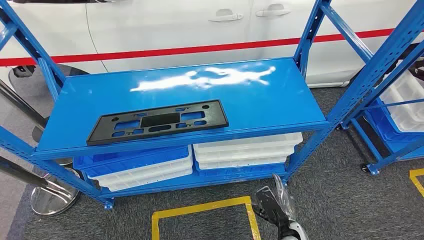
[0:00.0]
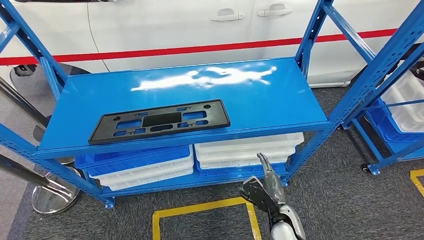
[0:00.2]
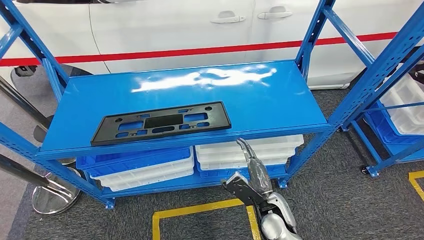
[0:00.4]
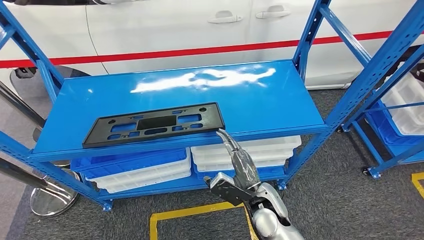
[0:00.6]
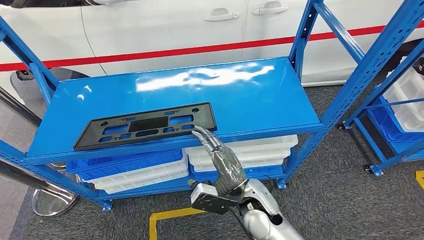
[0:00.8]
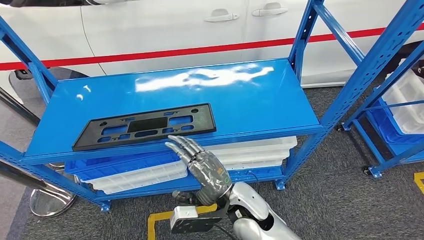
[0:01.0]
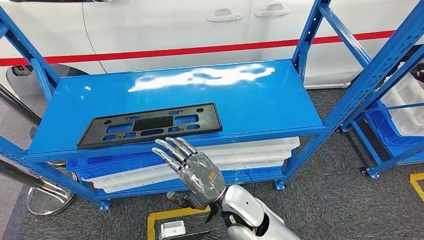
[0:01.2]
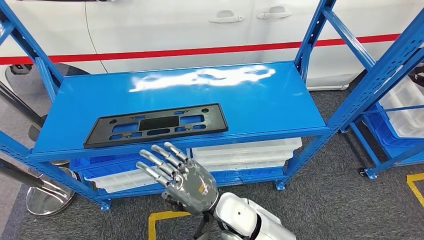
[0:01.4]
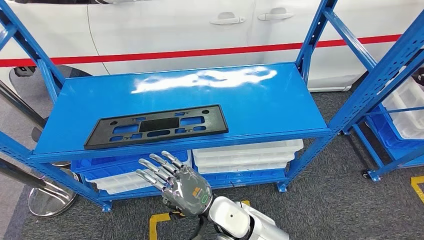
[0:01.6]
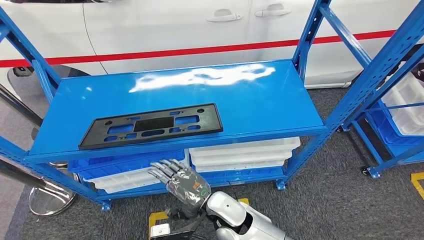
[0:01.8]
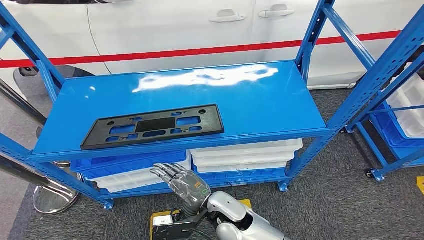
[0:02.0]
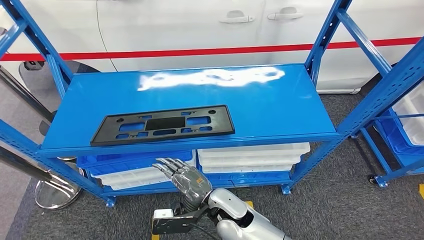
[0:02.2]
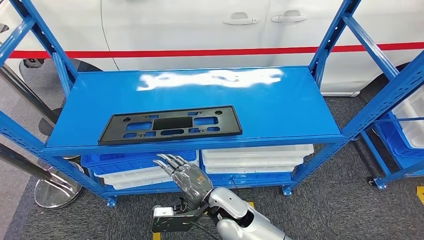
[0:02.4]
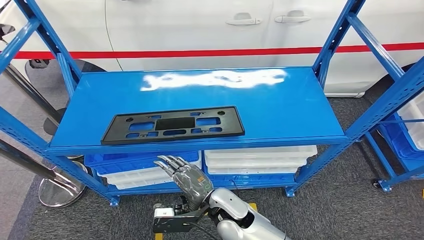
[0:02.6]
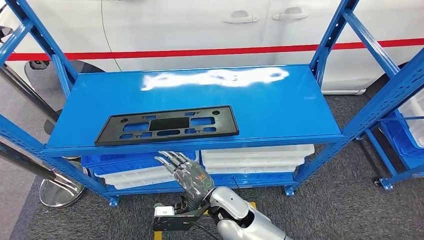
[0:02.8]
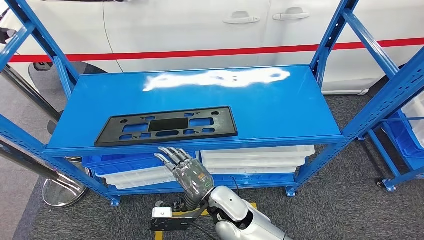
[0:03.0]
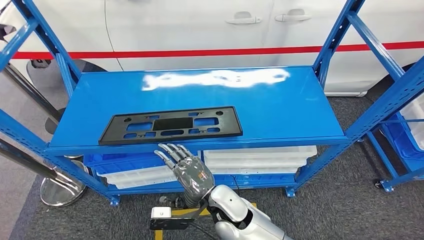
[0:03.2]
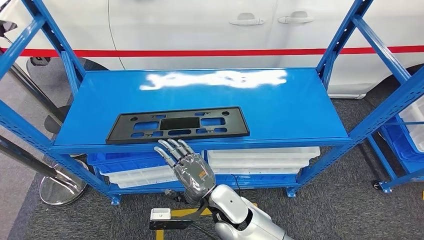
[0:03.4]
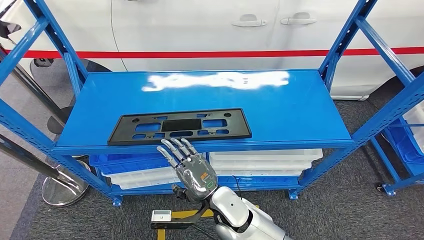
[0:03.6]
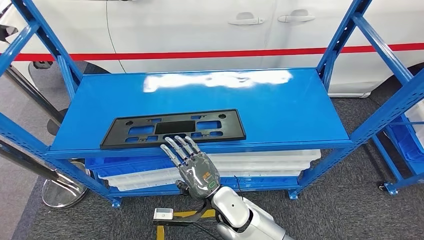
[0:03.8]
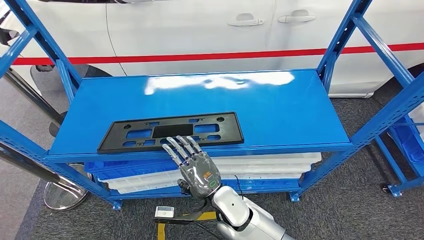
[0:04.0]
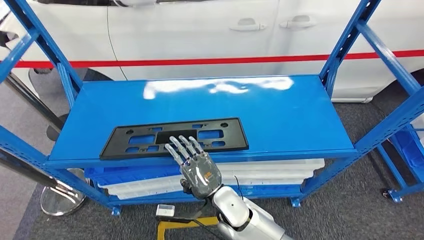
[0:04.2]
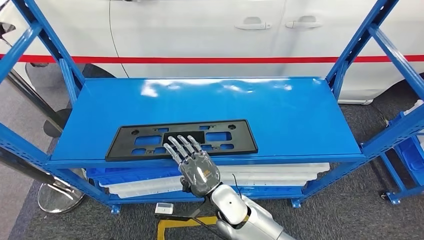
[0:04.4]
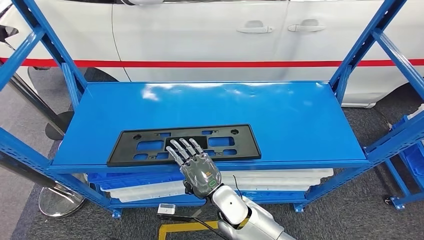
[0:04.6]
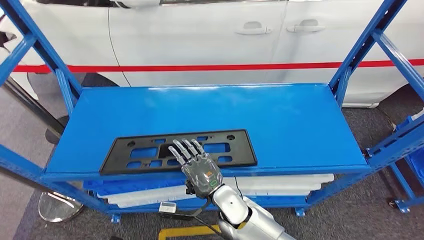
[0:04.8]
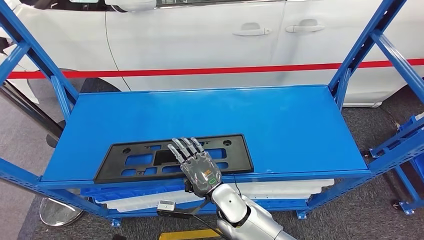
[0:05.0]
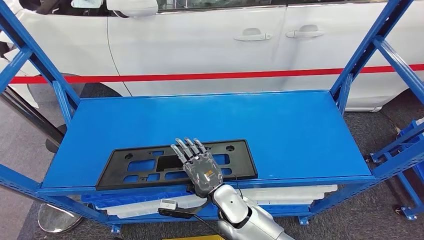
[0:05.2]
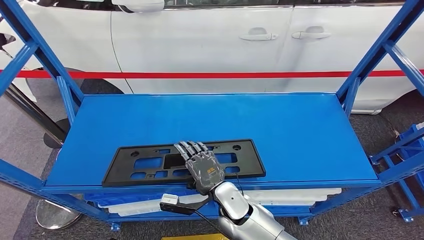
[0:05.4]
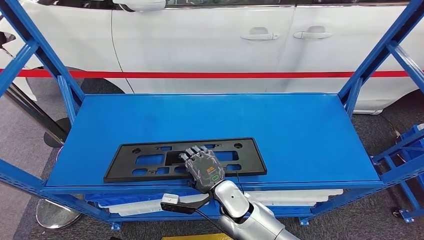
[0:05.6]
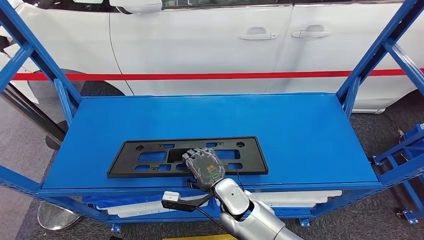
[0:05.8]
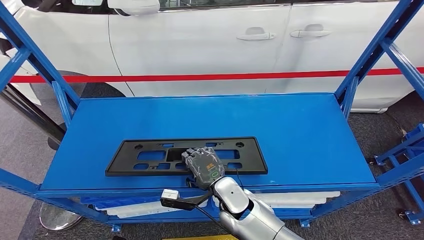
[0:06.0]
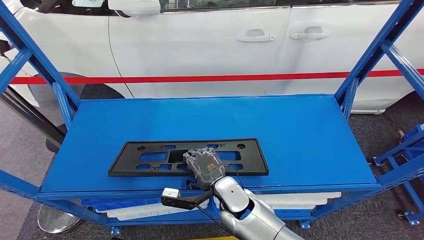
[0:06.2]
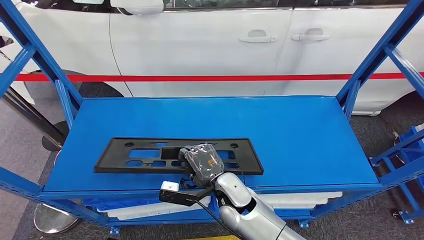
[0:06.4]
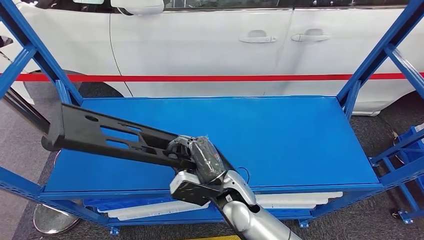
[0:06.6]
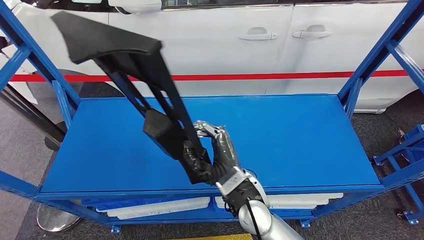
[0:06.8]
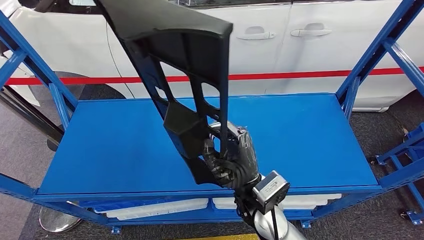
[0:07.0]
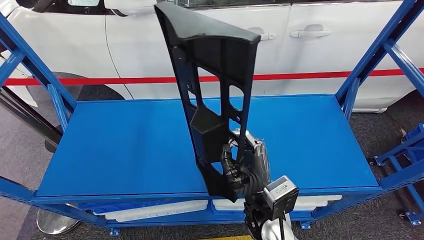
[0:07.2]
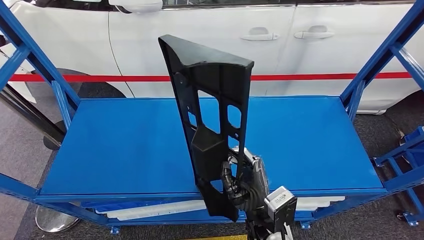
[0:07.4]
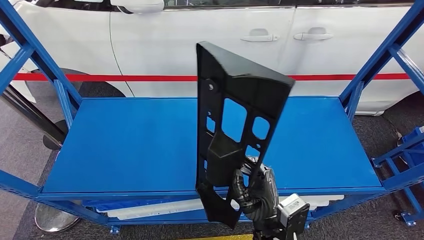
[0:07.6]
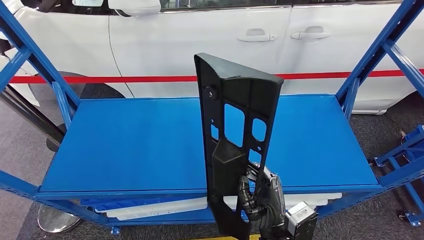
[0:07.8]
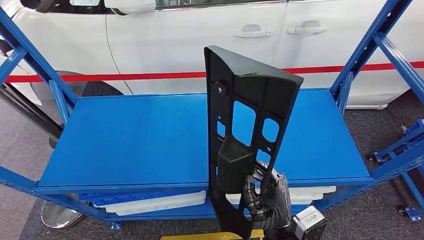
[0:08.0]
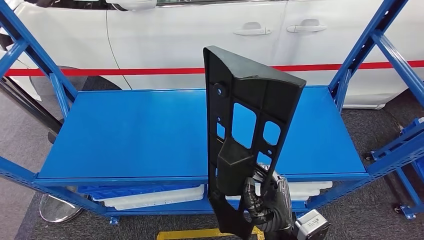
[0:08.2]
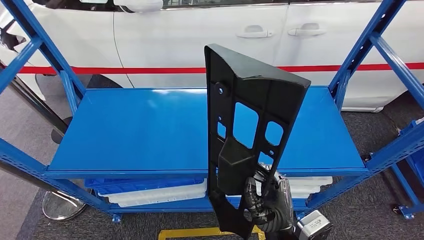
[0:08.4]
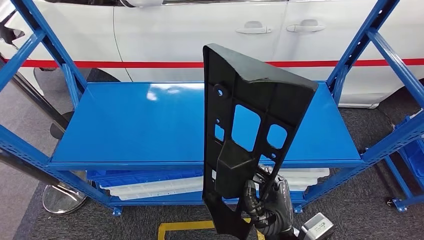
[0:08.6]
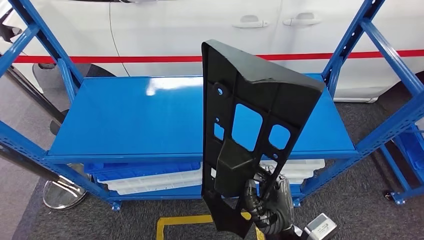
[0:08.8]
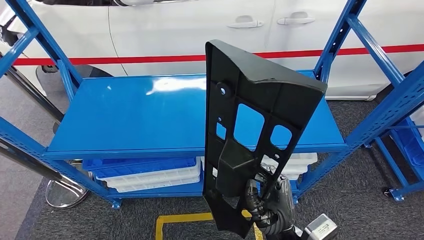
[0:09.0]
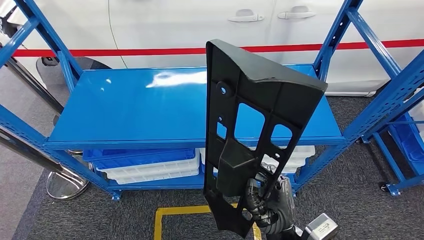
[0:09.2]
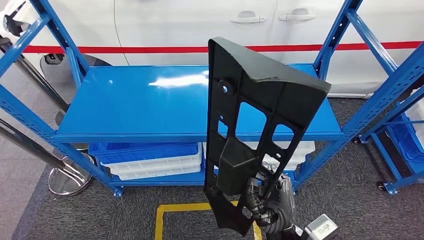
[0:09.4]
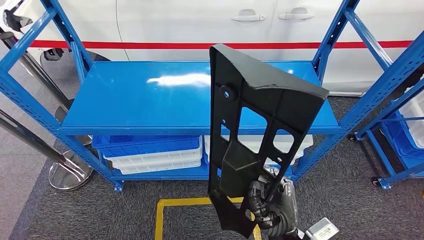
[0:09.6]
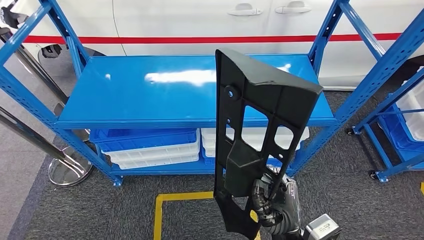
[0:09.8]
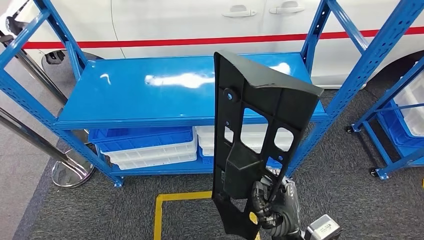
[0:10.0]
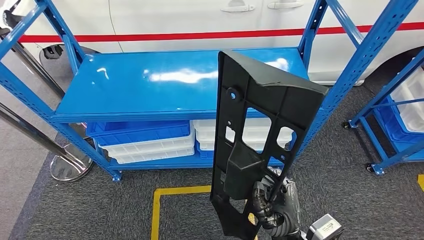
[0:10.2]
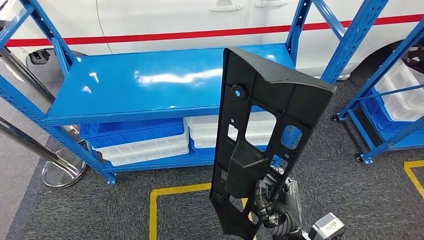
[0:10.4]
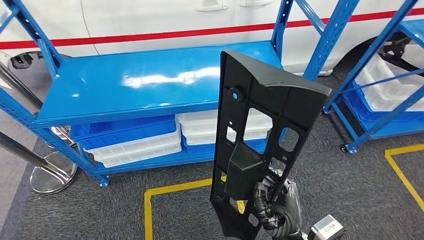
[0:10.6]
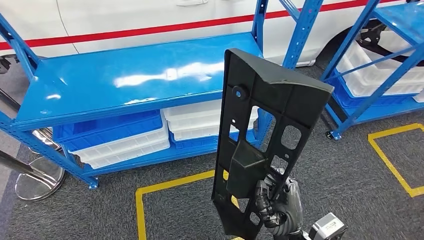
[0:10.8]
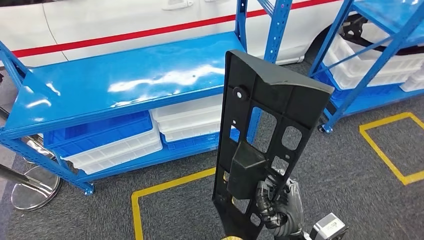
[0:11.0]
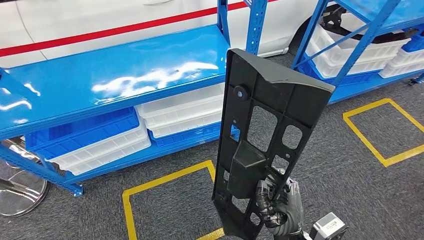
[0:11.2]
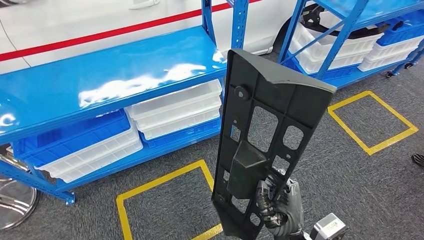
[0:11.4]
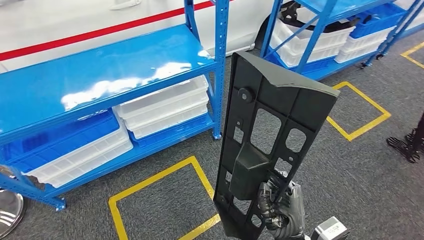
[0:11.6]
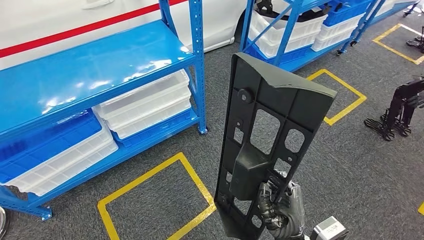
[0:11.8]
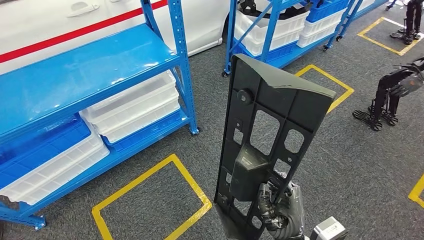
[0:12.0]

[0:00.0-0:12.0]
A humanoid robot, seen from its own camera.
Step, 0:00.0 to 0:07.0: Pick up the large material from the shelf.

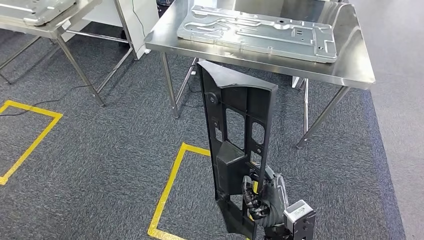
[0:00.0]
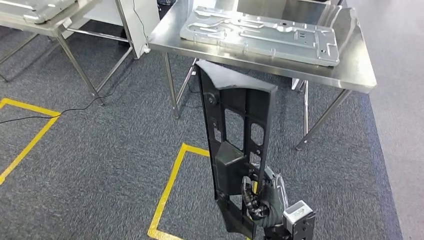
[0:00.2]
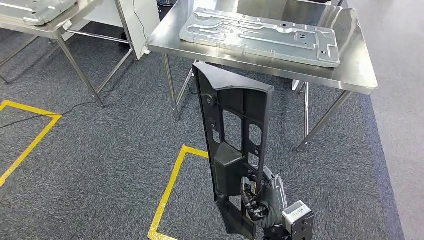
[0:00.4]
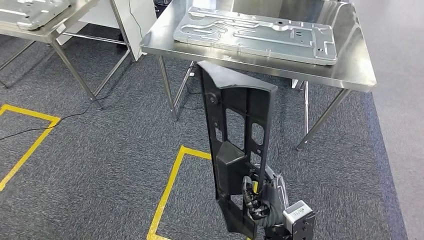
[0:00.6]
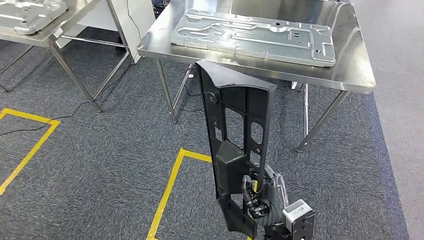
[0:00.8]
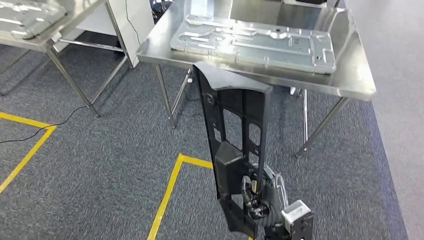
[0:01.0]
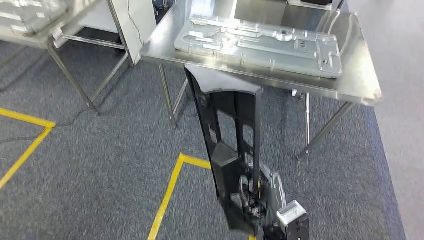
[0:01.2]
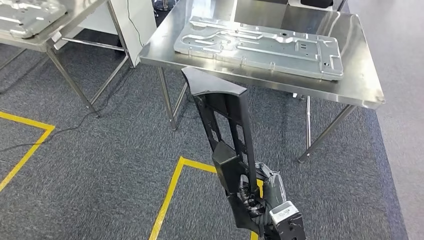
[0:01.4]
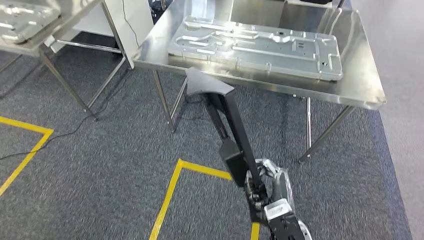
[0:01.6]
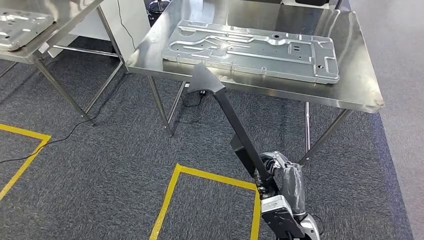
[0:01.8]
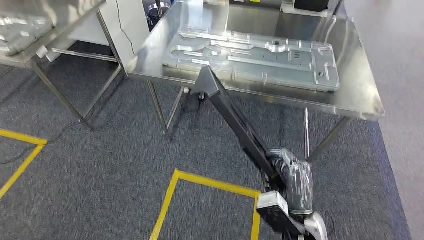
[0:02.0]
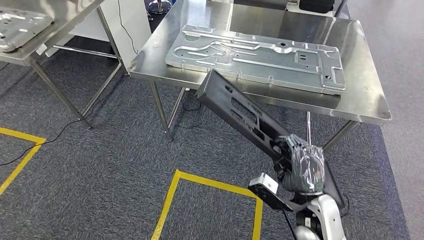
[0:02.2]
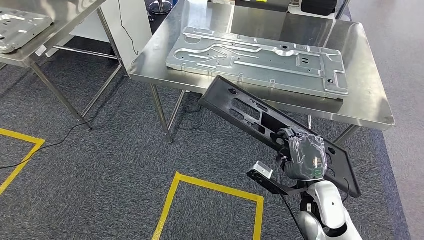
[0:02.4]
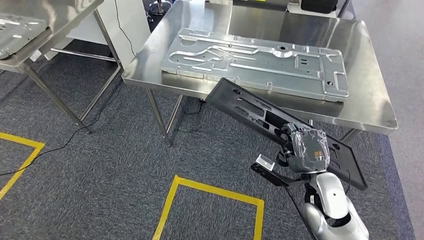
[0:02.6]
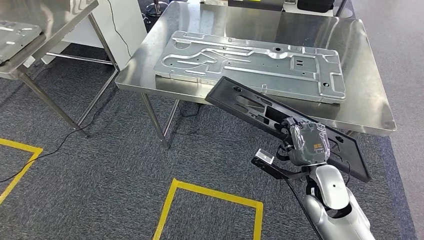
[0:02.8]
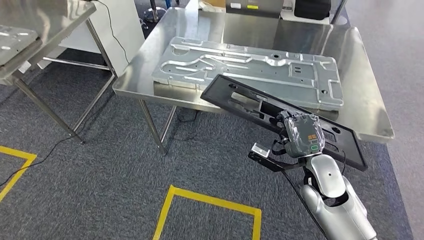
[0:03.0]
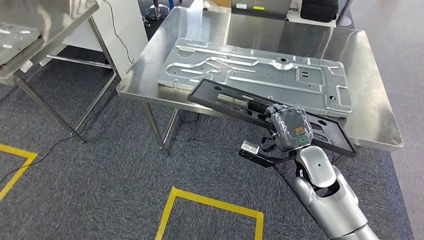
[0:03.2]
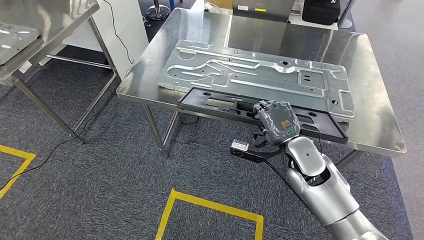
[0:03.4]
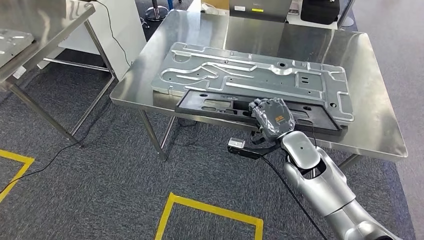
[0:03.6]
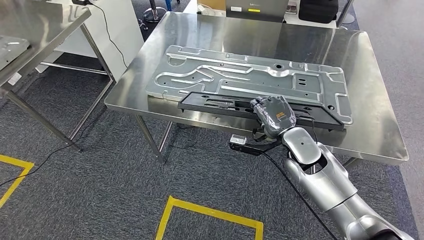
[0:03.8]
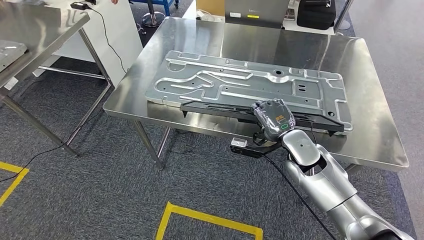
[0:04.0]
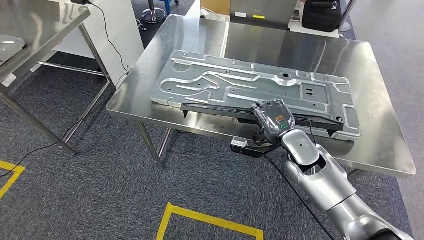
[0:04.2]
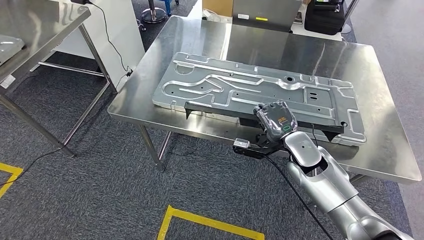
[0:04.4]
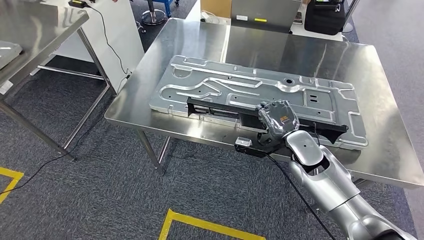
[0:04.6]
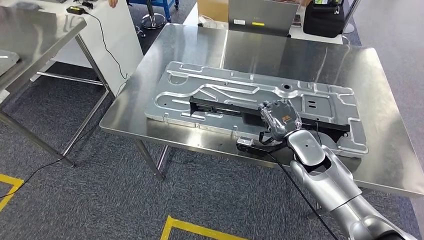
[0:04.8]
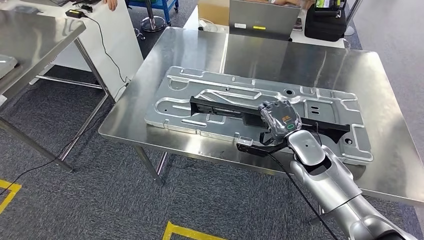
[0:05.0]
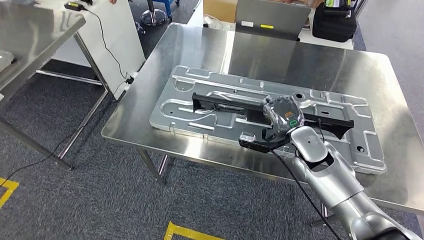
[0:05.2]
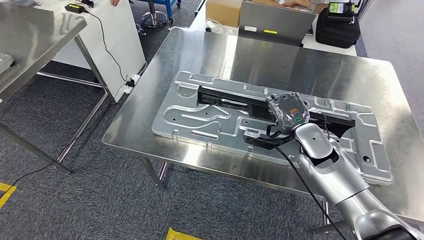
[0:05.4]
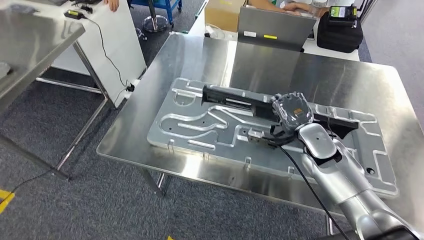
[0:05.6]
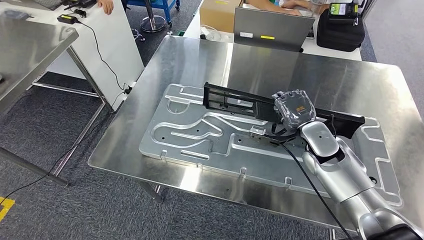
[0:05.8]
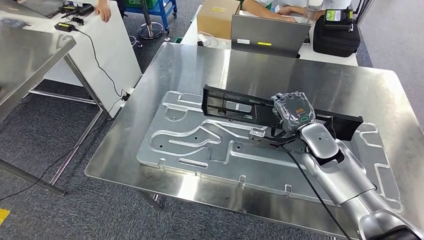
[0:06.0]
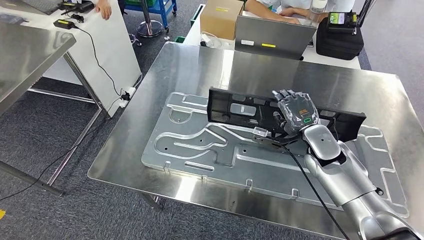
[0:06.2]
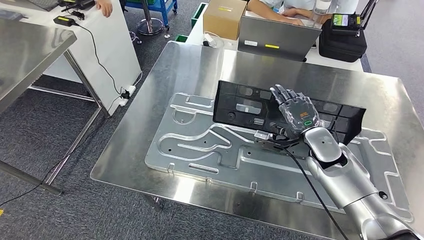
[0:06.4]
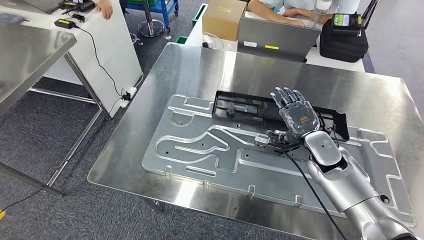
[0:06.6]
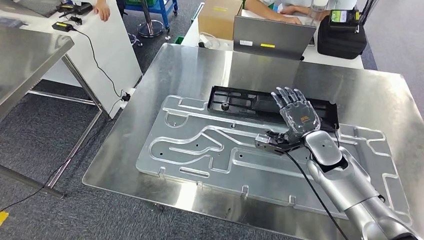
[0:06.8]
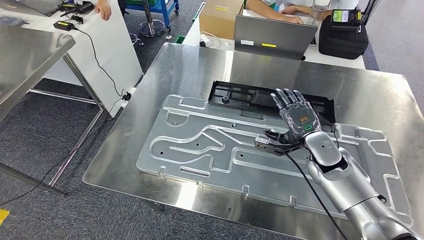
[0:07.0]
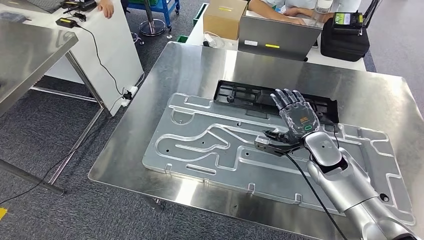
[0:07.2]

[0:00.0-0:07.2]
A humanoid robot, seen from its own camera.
Step, 0:00.0 to 0:05.0: Move the large material to the workbench.
